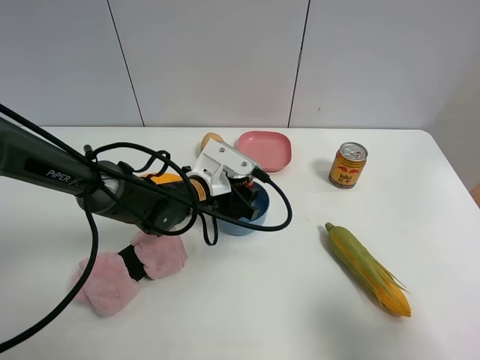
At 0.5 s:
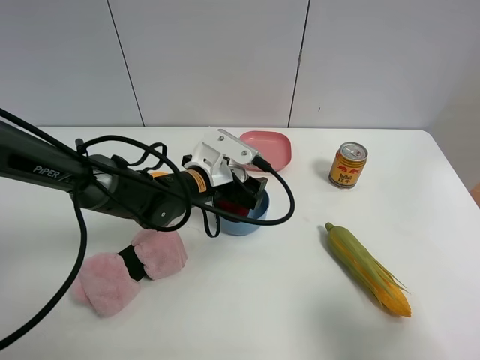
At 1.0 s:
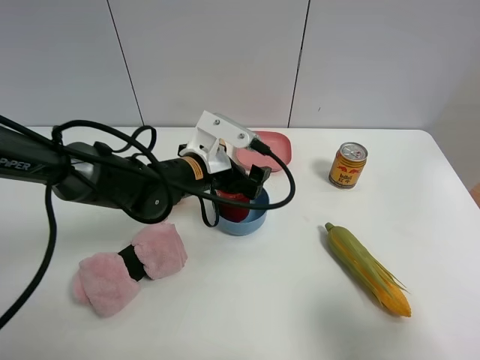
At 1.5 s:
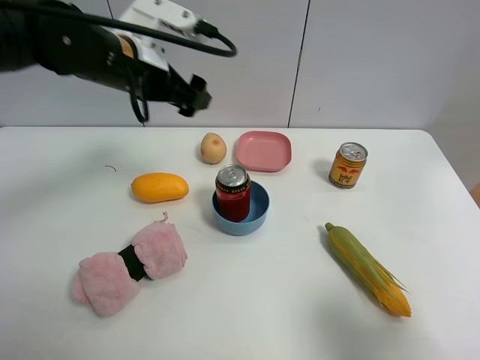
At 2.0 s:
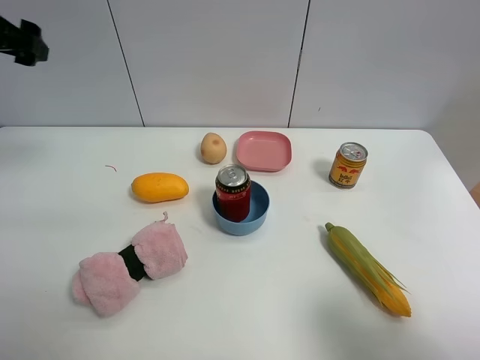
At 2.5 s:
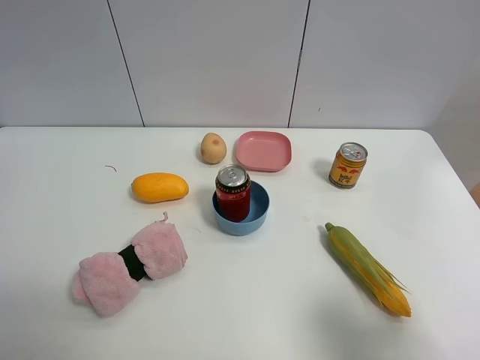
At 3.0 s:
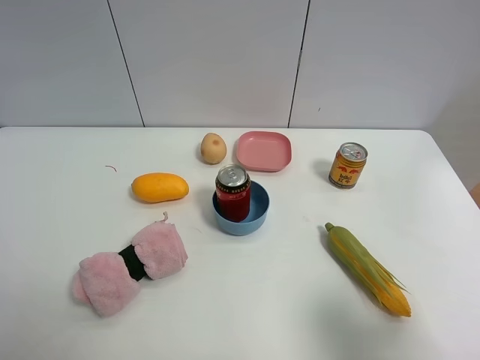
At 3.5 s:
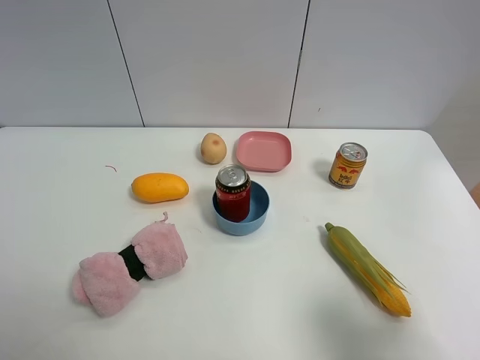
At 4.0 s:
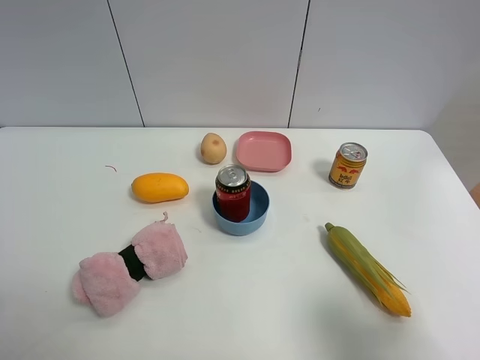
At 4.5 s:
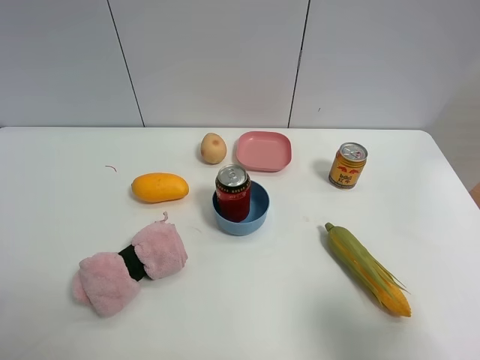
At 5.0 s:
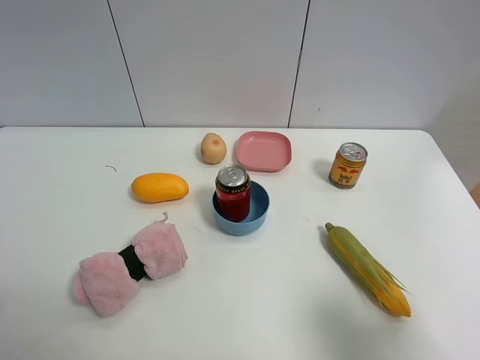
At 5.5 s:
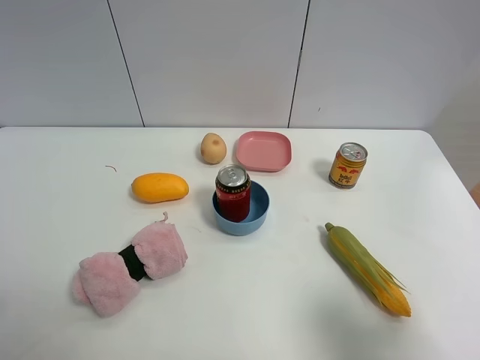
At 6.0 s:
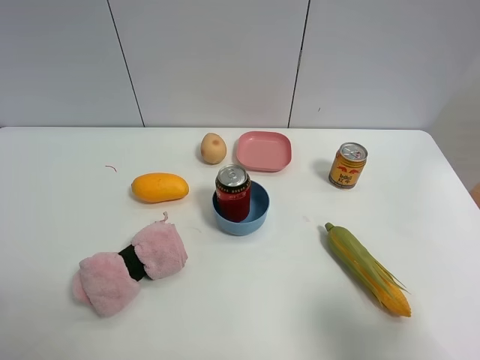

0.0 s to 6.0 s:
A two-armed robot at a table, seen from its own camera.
Task of the whole recording: the gripper move the object.
0.0 to 2.0 s: The left gripper moves to the left and upward, approximately 40 cm, and opens up.
2.0 to 4.0 s: The left gripper moves backward, some 35 cm.
4.0 to 6.0 s: Both grippers stay put.

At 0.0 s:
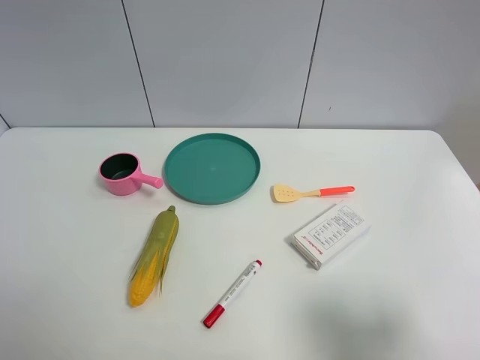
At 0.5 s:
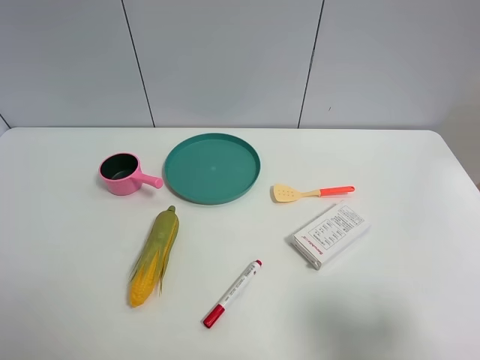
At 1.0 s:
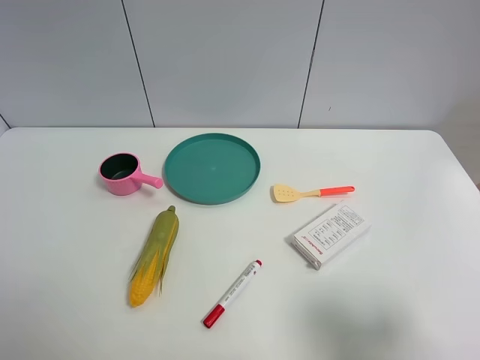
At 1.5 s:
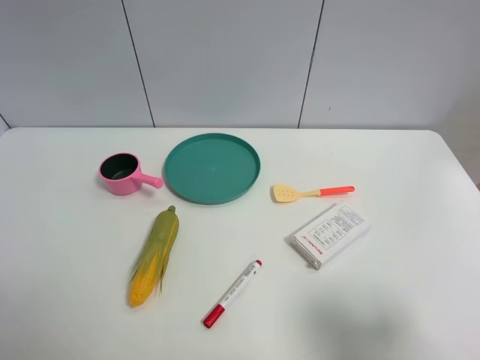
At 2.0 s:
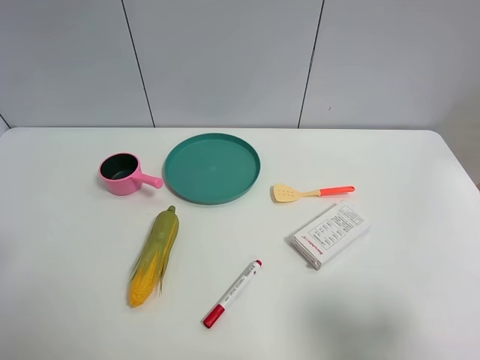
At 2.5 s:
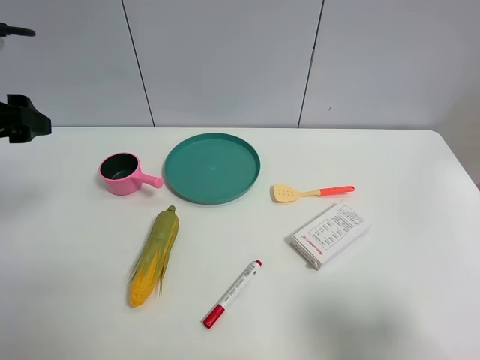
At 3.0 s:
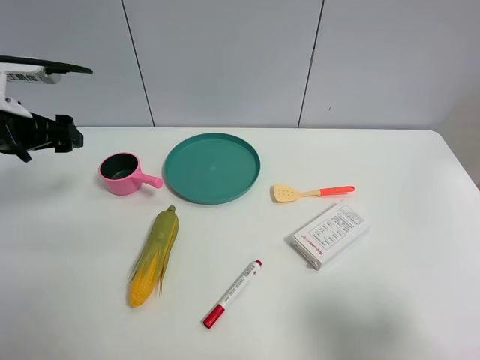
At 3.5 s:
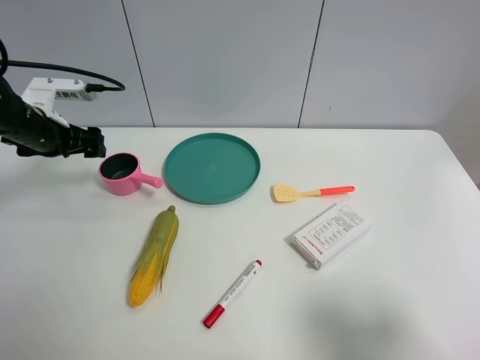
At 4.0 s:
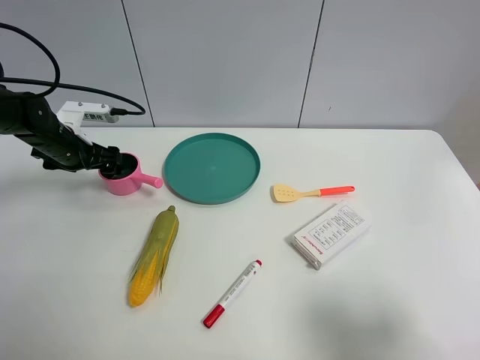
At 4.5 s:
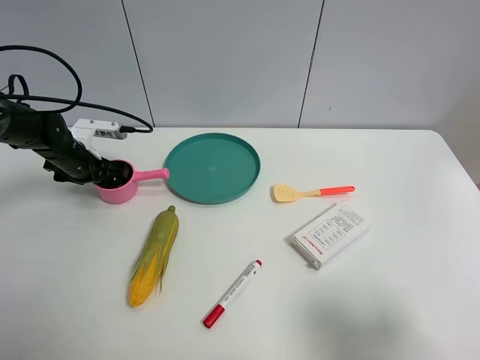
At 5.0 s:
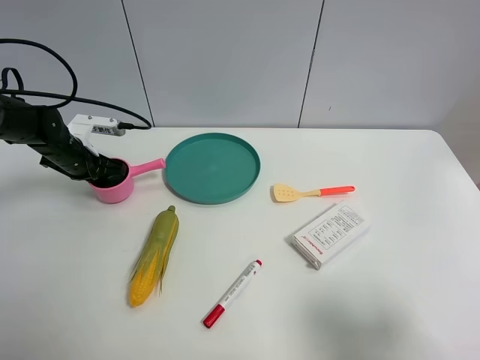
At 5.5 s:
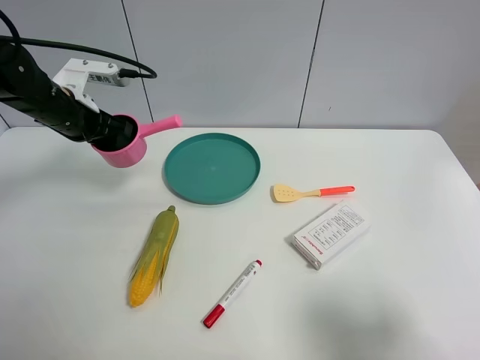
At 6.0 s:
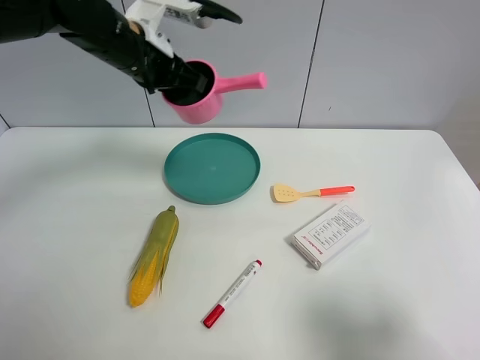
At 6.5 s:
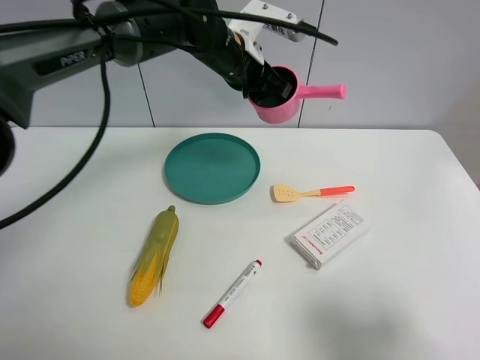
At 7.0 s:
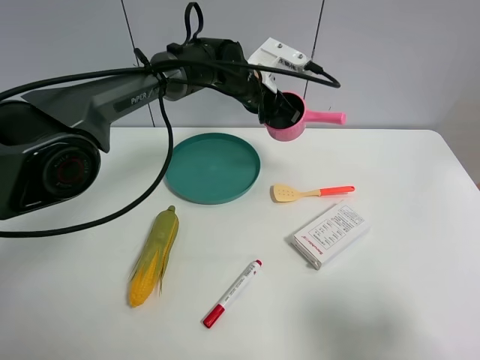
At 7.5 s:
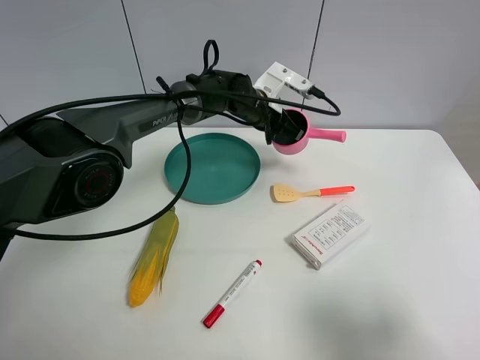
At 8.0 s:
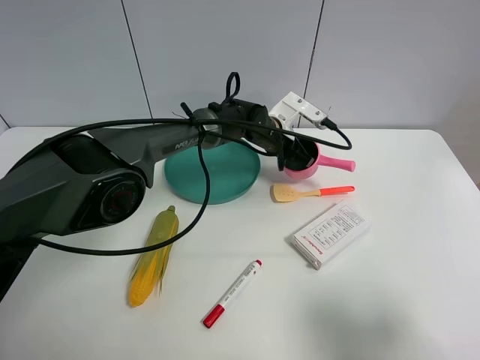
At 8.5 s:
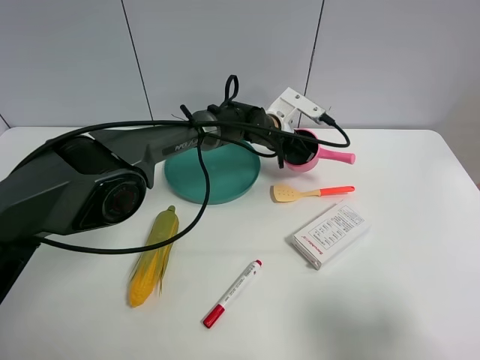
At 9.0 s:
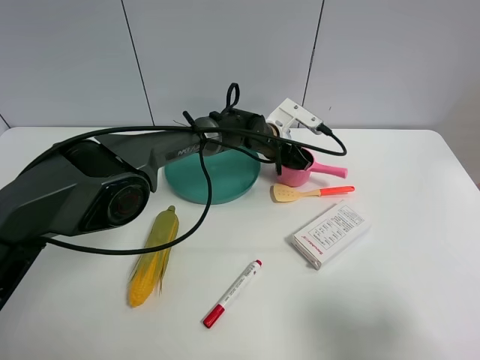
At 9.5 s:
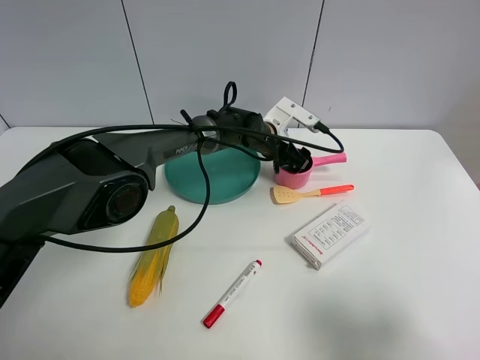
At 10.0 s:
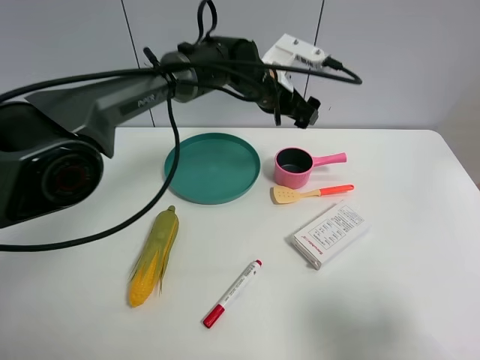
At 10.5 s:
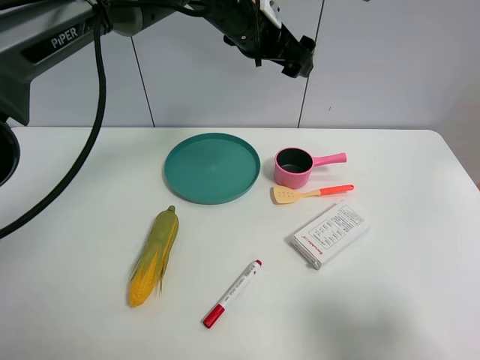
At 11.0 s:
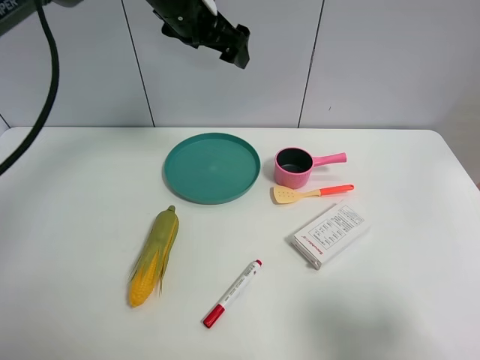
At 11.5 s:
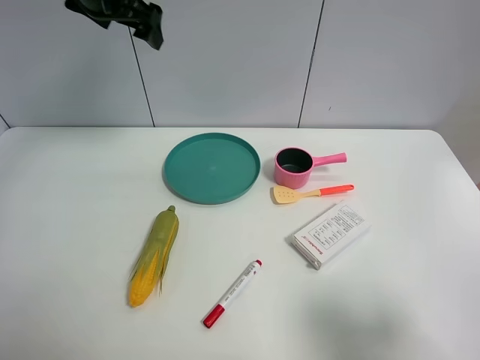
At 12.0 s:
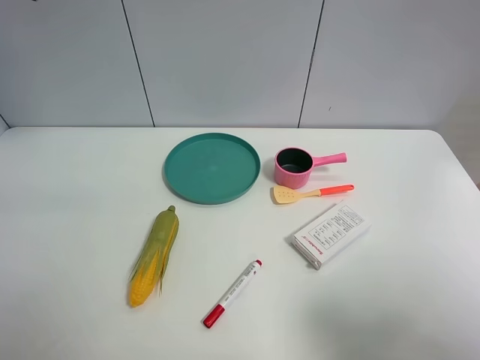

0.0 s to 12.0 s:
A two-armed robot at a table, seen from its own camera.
Task of the whole recording: the gripper move the object.
Step, 0.0 to 4.5 s: Grasp the pink pot with the left gripper.
Step, 5.0 to 9.5 s: Place the pink pot on the table with the left gripper.
2.0 to 4.0 s: The left gripper heads forward and downward, covering roughly 35 cm.
4.0 to 6.0 s: The left gripper moves to the right and upward, about 25 cm, and closes.
6.0 to 8.0 s: The left gripper heads downward and to the right, covering some 25 cm.
8.0 to 10.0 s: The left gripper moves upward, approximately 10 cm, and opens.
10.0 to 12.0 s: The left gripper moves to the left and upward, approximately 40 cm.

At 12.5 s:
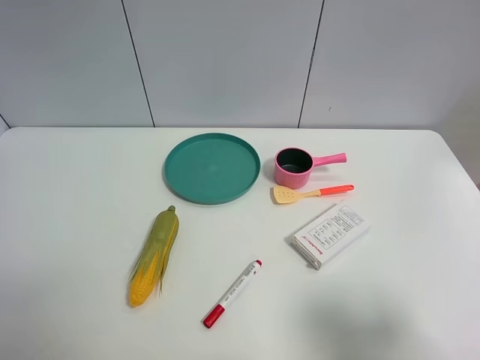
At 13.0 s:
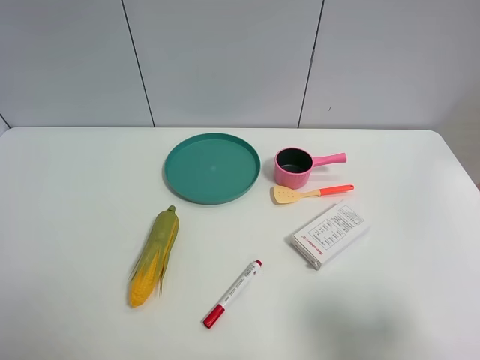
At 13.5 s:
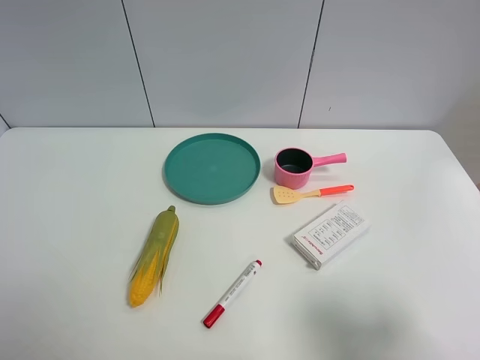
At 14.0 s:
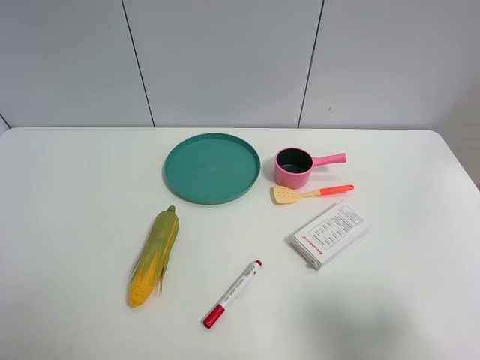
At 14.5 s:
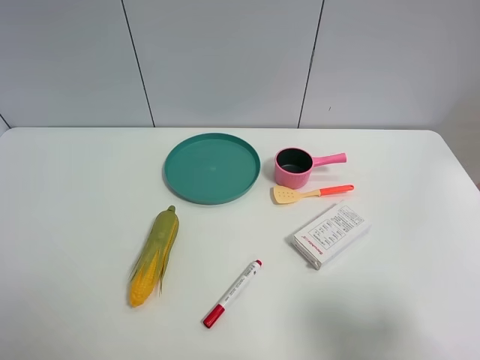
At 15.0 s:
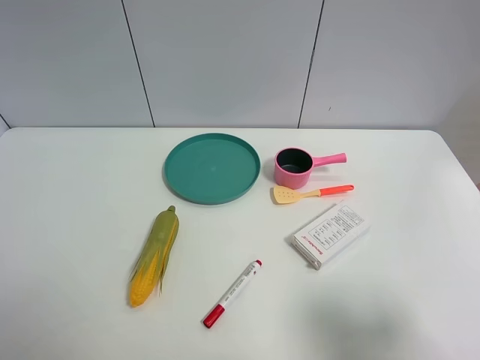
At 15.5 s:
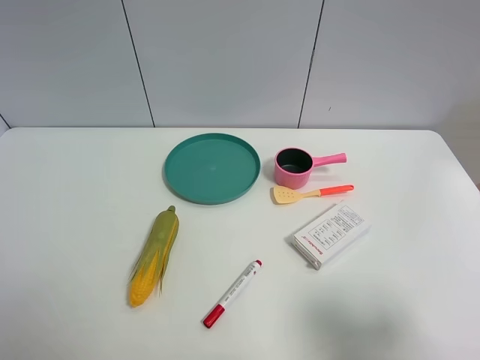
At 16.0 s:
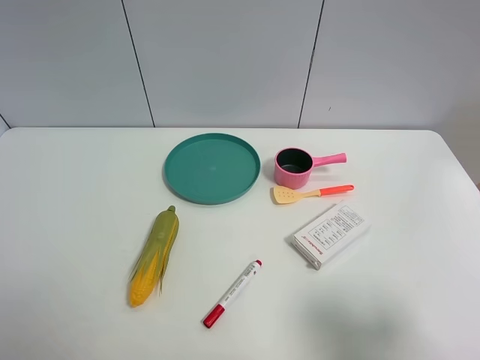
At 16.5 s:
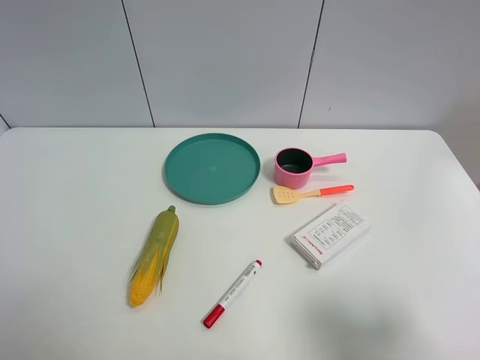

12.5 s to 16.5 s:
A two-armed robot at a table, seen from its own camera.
Task of the whole recording: the gripper move the object.
14.5 to 16.5 s: The two grippers keep their place.
